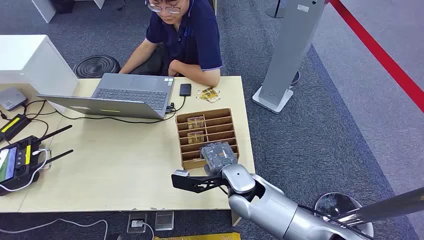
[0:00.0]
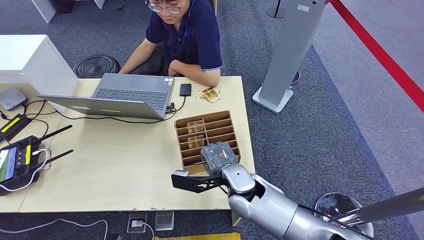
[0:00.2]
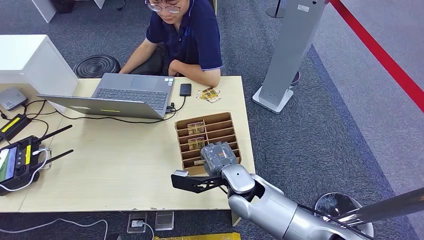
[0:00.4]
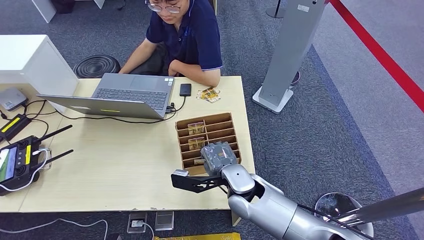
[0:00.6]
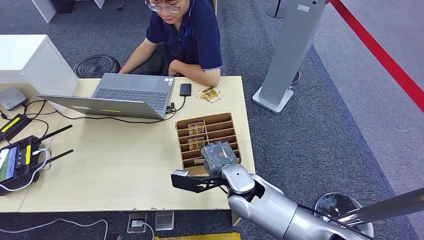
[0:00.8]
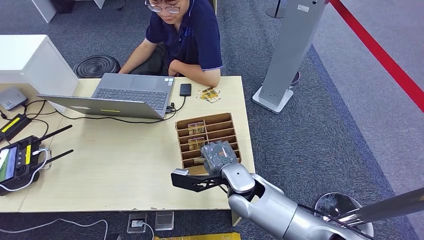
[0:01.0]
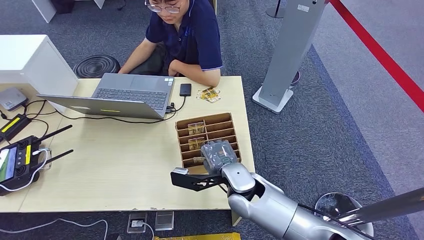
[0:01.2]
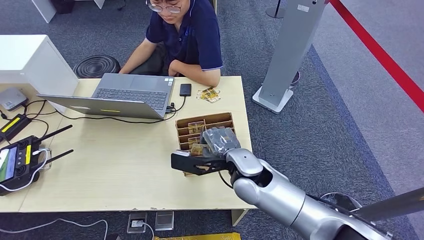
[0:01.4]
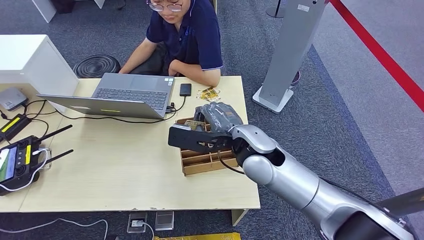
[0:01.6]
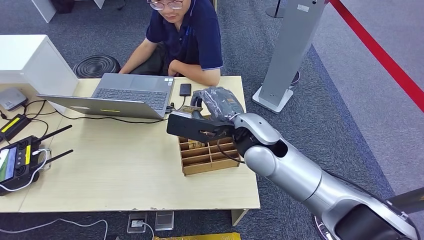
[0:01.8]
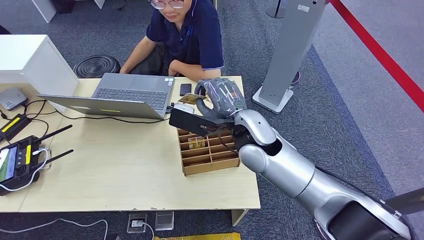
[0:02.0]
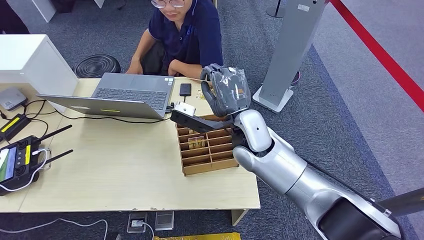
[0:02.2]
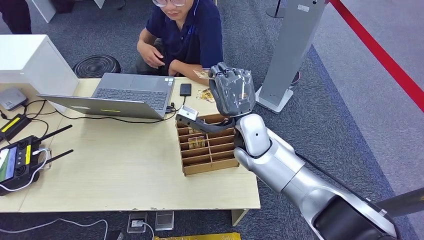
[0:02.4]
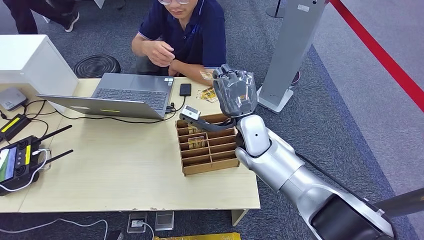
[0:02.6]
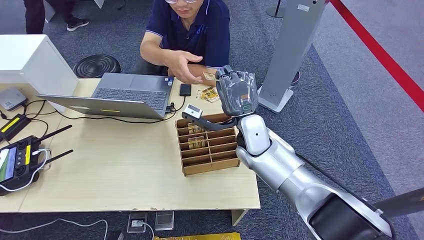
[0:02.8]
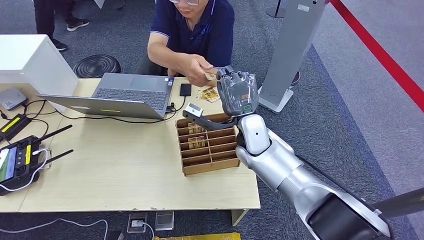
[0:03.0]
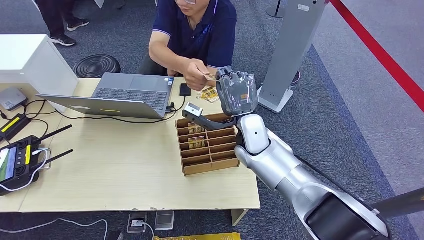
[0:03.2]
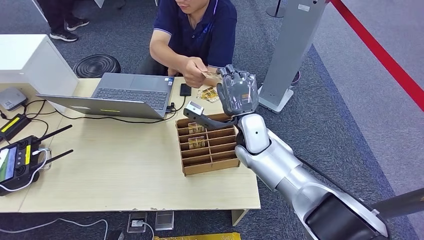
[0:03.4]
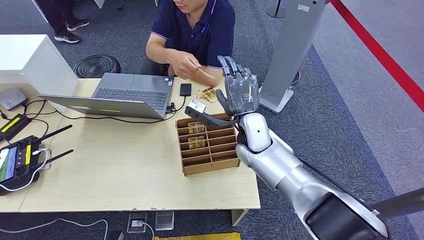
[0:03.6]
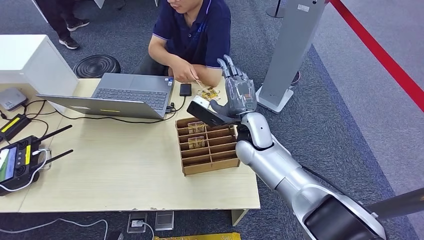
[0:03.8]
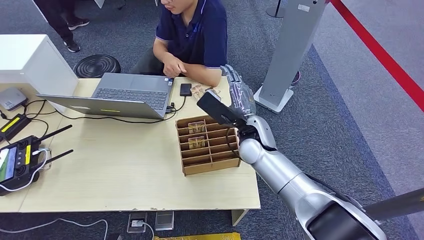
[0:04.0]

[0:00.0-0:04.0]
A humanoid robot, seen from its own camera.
Step, 0:00.0 to 0:01.6: Pick up the room card from the card holder.
Step, 0:02.0 to 0:04.0: Hand the room card to the target.
0:01.4 to 0:02.6: The right hand goes about 5 cm forward.
